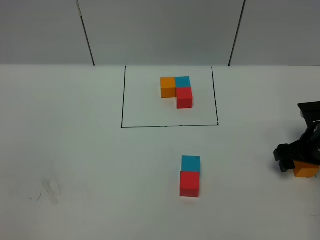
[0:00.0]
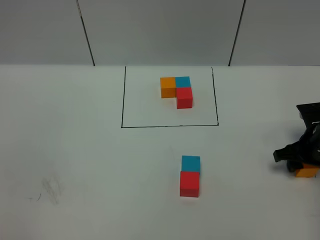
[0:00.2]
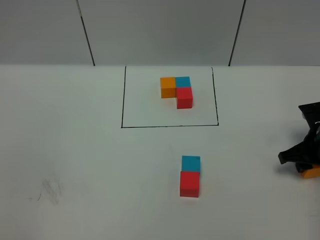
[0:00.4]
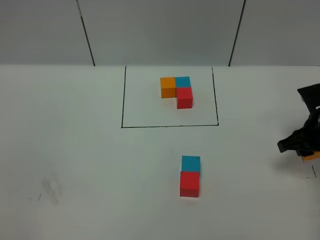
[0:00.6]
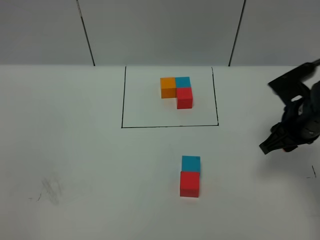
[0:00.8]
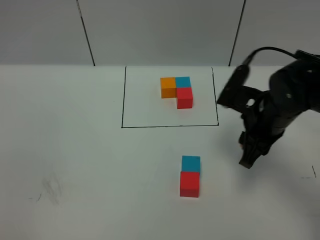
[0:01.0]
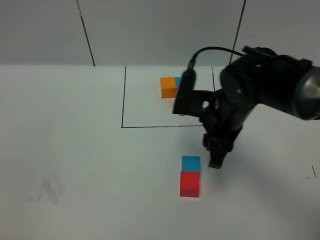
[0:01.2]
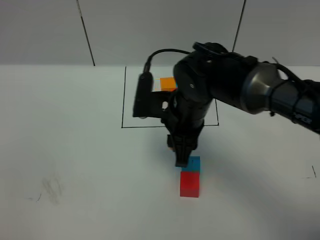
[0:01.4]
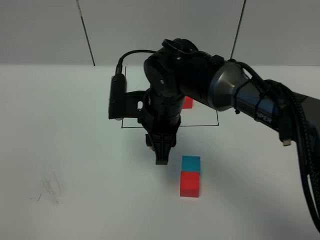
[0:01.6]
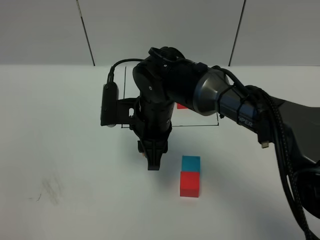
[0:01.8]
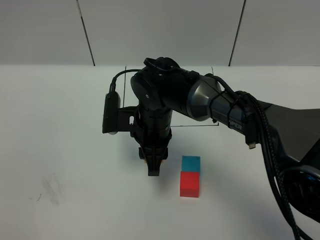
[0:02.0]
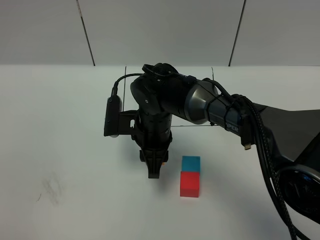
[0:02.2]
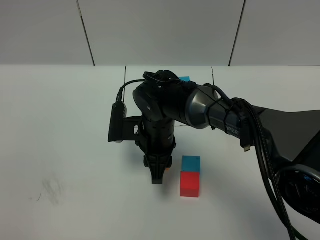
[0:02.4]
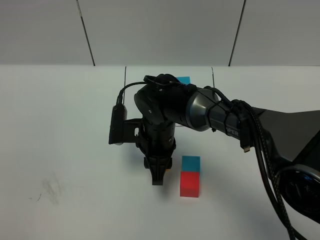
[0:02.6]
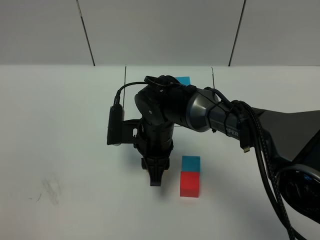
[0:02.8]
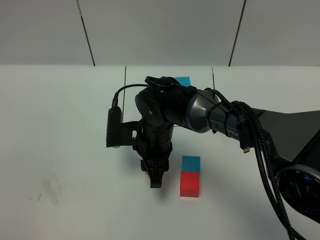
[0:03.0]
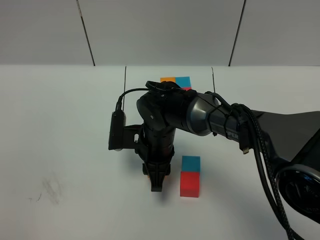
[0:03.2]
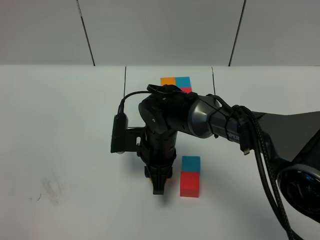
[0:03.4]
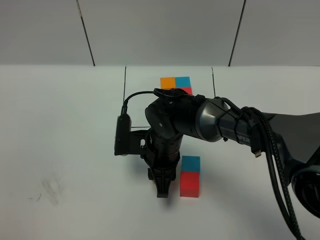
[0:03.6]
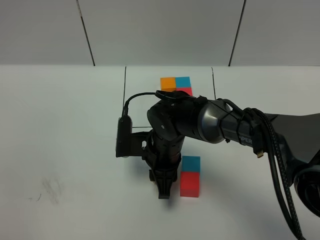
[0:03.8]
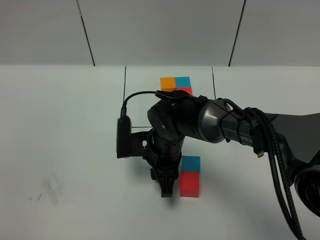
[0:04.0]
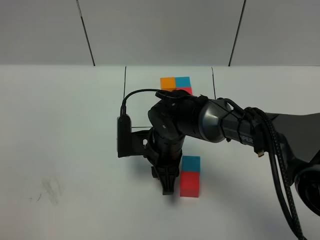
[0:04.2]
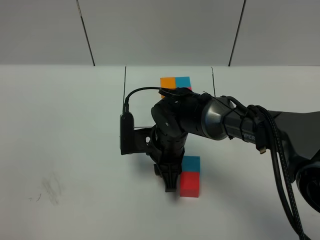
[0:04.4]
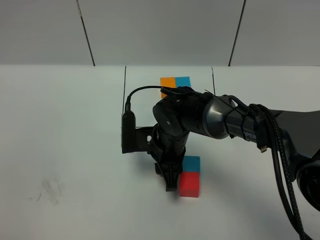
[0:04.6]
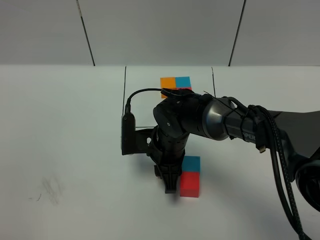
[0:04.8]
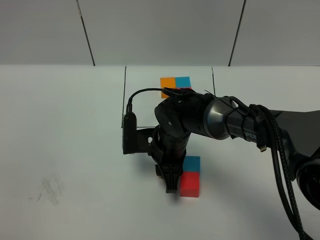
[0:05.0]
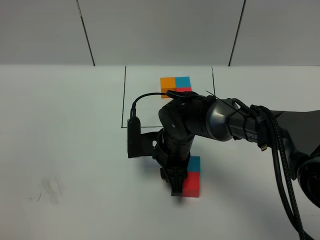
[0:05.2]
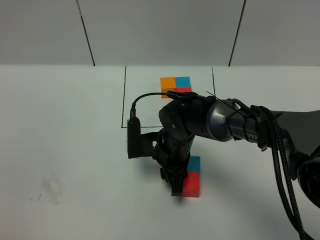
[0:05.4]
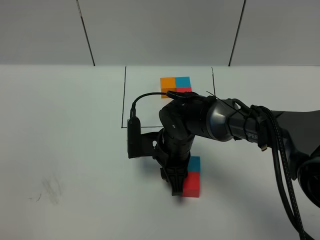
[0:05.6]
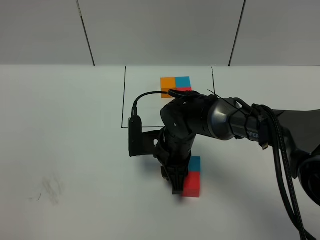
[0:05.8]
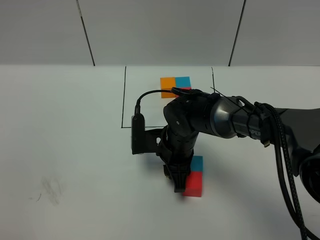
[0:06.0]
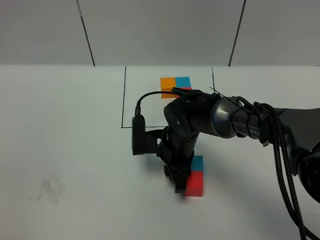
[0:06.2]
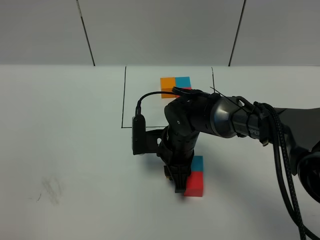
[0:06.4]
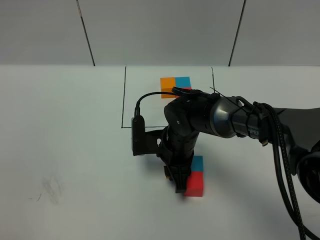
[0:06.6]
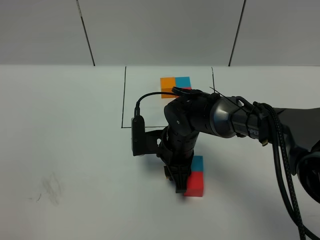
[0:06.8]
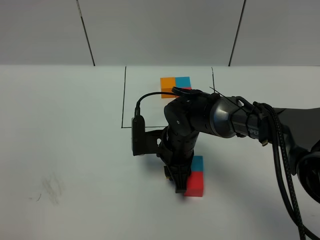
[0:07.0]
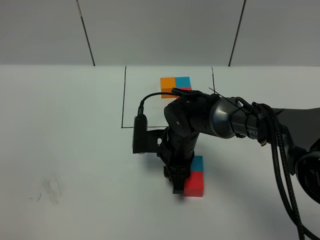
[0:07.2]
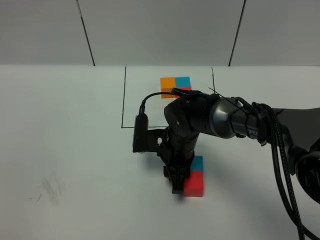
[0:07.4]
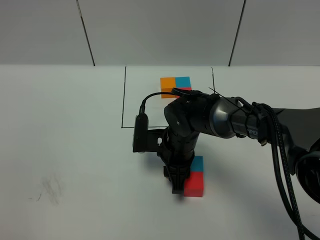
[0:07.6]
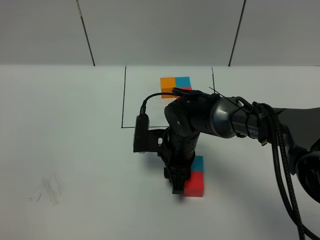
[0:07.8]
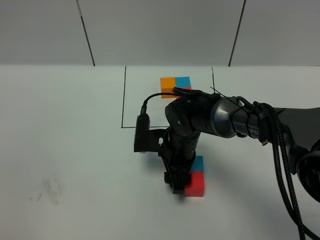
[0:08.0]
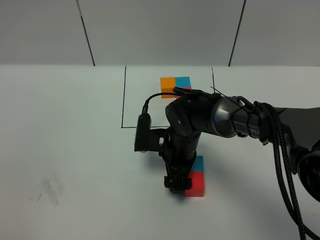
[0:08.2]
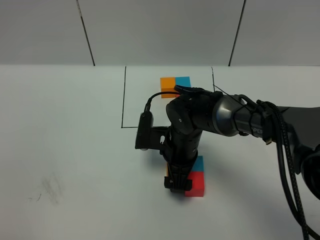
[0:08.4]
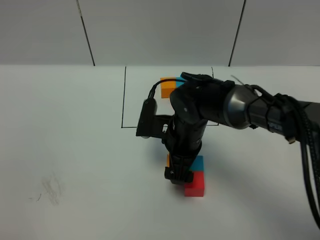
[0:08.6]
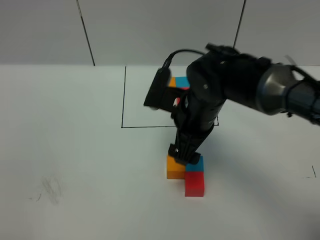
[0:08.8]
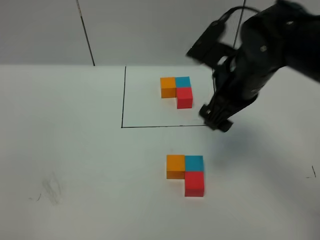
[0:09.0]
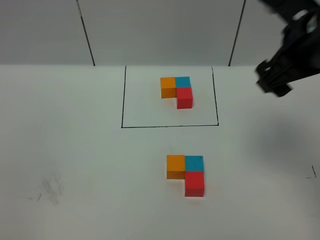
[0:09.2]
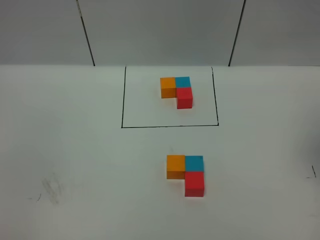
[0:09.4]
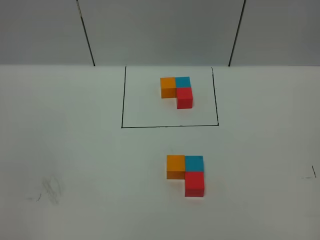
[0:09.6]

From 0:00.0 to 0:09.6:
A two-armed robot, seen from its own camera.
Task of the whole recording: According to the building block template in front, assemble the scattered blocks together.
From 0:00.0 to 0:01.6: The right gripper moves to the left, about 30 cm, and closes up.
From 0:01.6 to 0:03.2: The right gripper heads downward, covering some 10 cm.
From 0:03.2 to 0:06.4: The grippers make only small movements.
From 0:06.4 to 0:08.0: The right gripper opens up.
From 0:08.0 to 0:09.6: The right gripper goes approximately 50 cm upward, to the right and backward.
